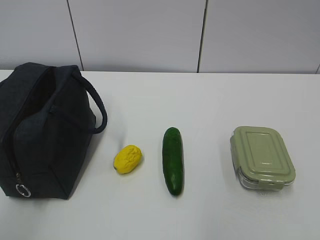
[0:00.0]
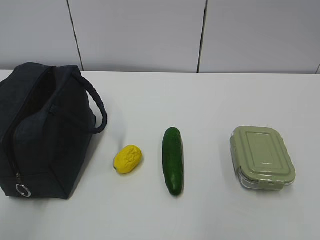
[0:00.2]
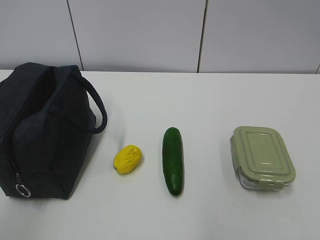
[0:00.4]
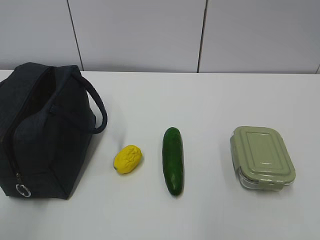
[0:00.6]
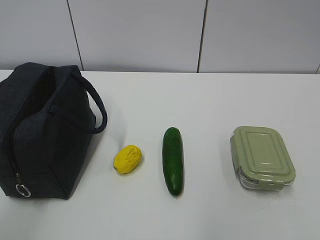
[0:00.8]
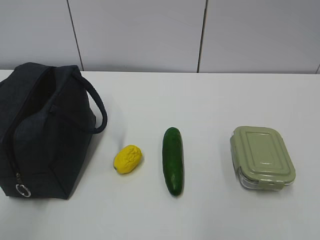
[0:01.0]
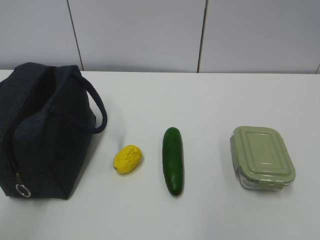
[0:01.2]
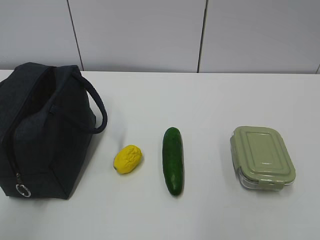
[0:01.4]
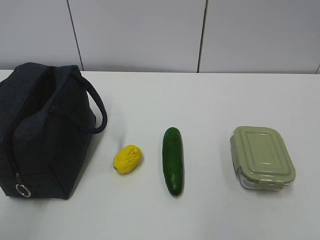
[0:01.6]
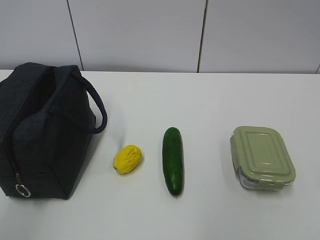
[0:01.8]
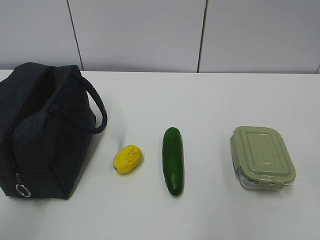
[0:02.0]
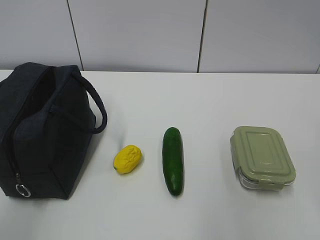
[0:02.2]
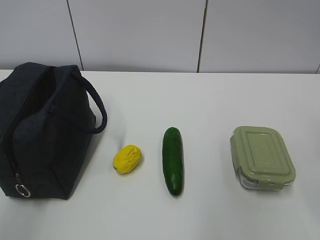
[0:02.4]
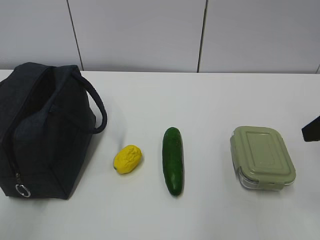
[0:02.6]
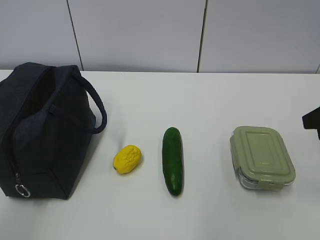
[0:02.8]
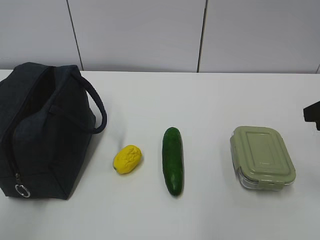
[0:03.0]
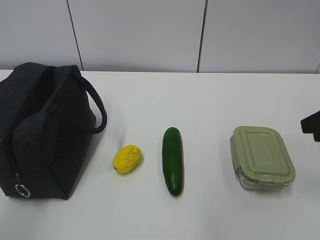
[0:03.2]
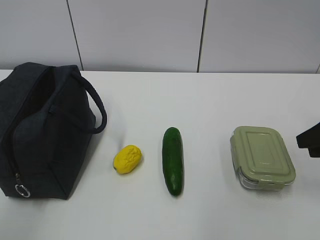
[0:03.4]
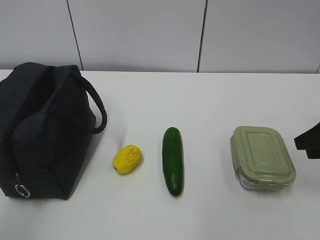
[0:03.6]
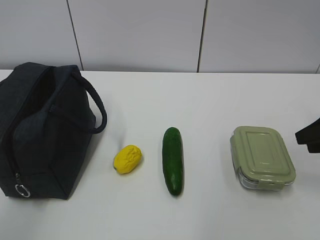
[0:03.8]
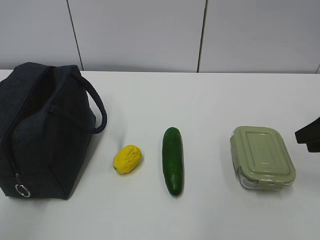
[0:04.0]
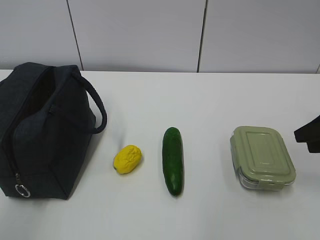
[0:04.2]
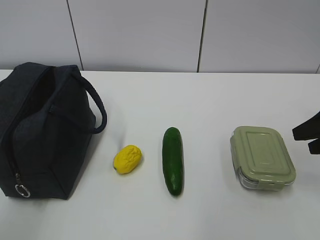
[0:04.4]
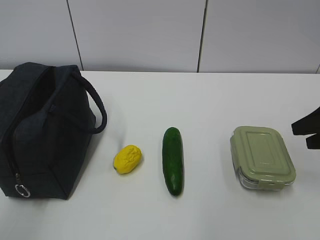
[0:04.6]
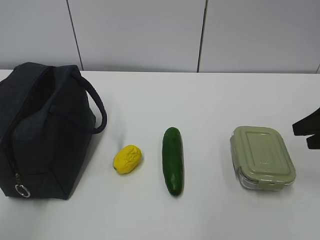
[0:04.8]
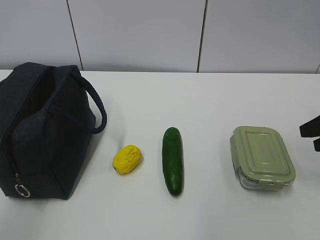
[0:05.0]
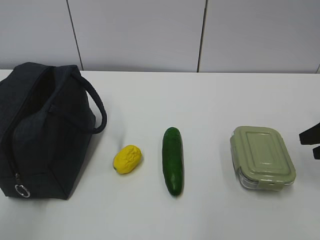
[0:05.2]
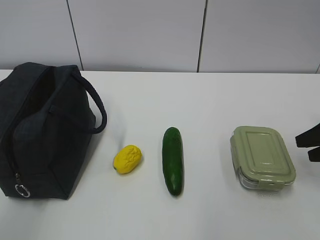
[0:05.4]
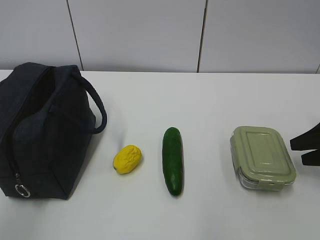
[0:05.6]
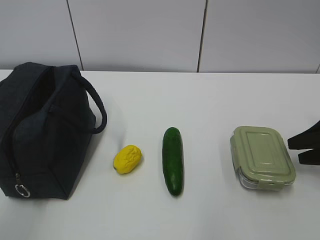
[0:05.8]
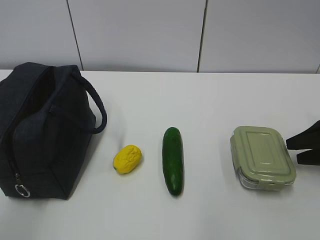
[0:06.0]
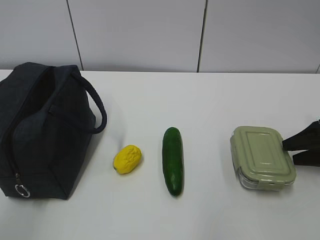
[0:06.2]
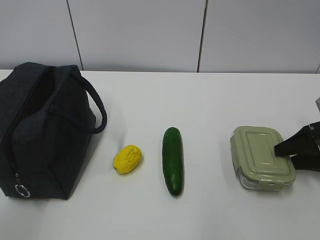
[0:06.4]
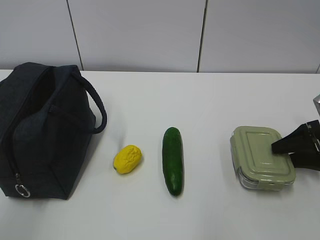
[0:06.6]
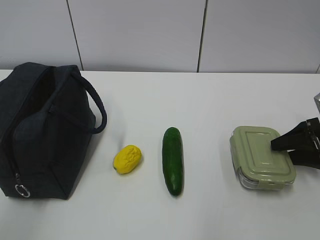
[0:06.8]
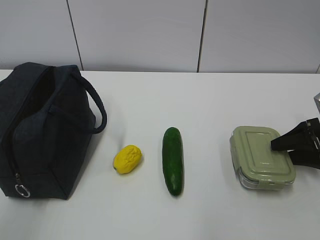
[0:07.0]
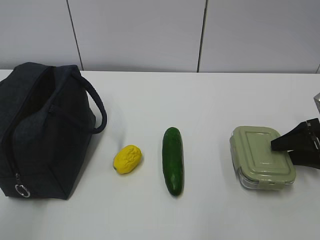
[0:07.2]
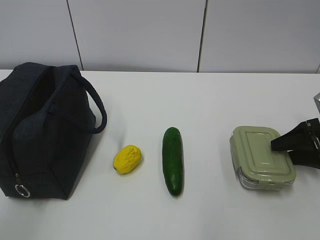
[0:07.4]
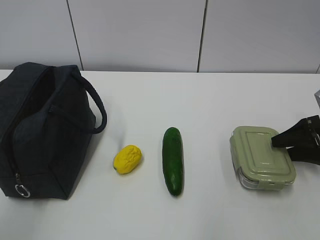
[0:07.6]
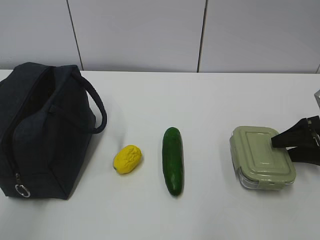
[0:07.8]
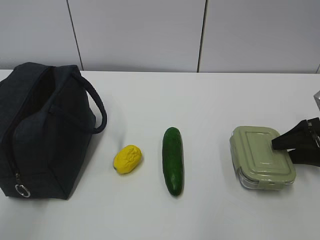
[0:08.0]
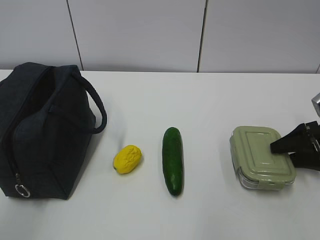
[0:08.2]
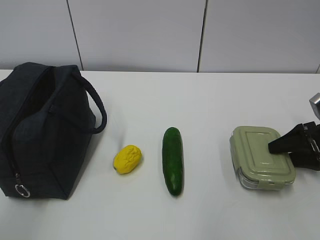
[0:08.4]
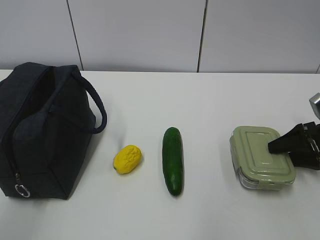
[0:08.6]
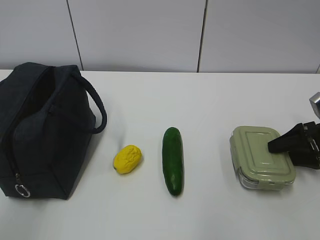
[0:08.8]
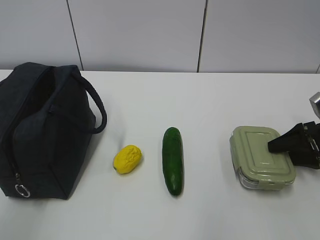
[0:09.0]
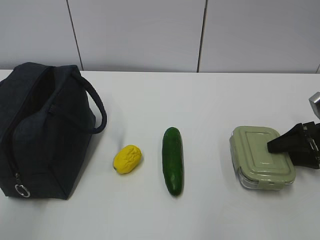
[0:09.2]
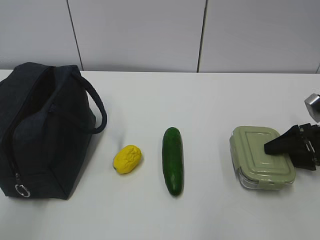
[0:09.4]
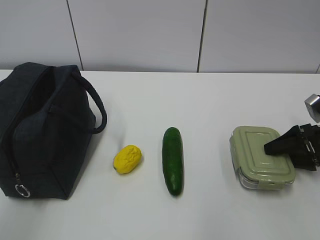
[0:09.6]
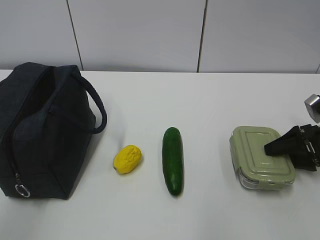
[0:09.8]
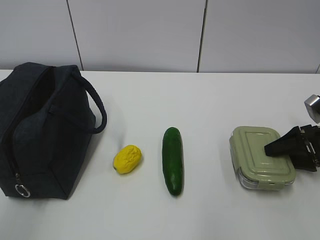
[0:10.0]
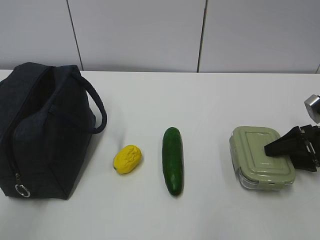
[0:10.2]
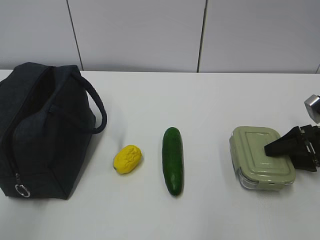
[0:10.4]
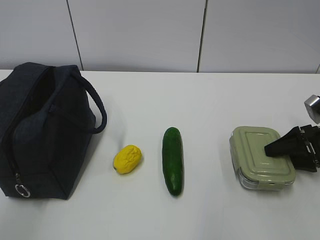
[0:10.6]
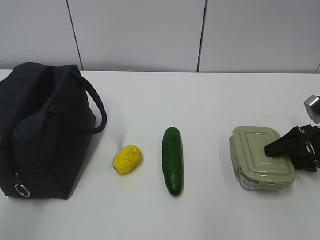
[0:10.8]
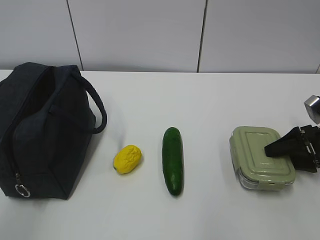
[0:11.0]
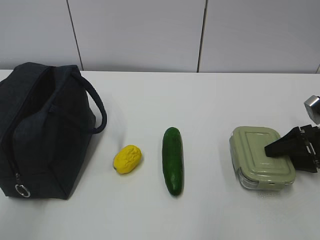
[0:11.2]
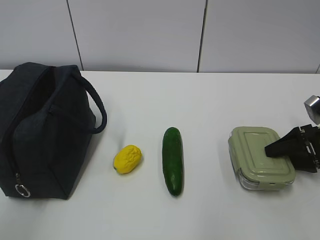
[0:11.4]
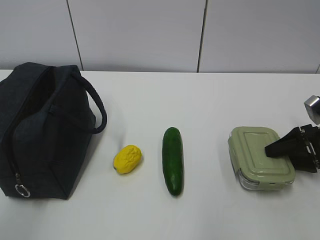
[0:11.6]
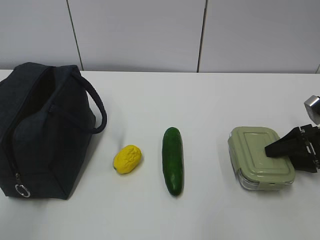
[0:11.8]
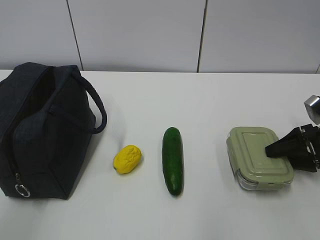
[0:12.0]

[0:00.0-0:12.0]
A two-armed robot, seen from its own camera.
0:03.0 to 0:04.4: The right gripper goes approximately 5 cm downward.
0:04.4 to 0:06.0: The right gripper travels downward by approximately 5 cm.
0:06.0 to 0:07.6: The grippers stay close to where they were, moving slightly.
0:07.6 to 0:09.0: Both grippers stay put.
0:09.0 to 0:12.0: Both grippers stay put.

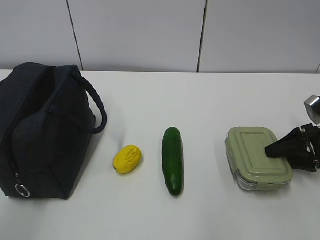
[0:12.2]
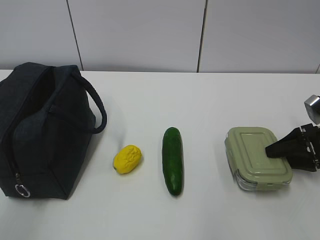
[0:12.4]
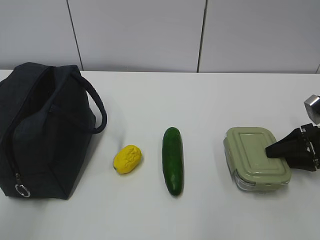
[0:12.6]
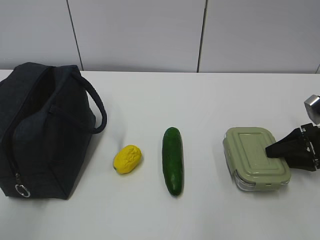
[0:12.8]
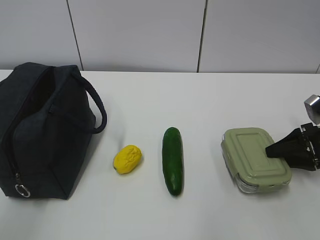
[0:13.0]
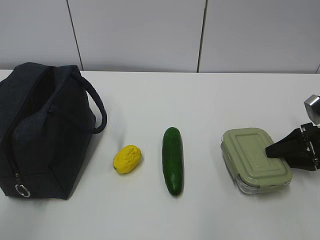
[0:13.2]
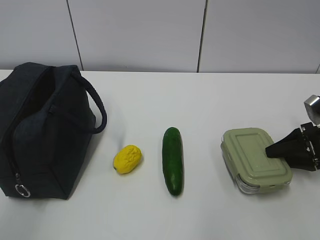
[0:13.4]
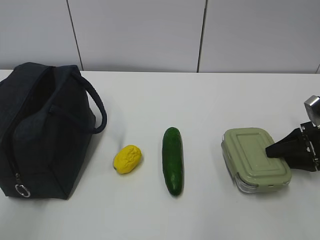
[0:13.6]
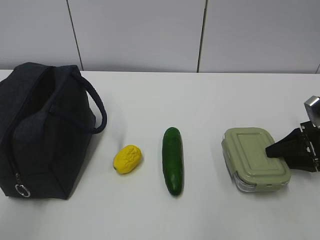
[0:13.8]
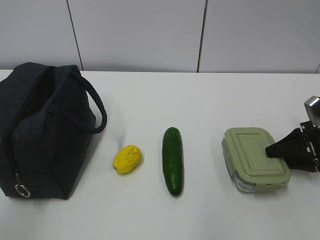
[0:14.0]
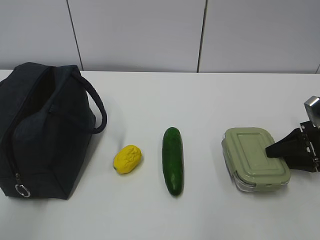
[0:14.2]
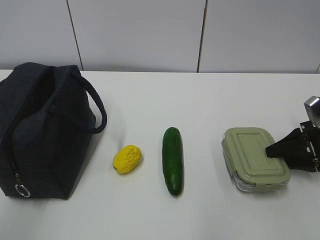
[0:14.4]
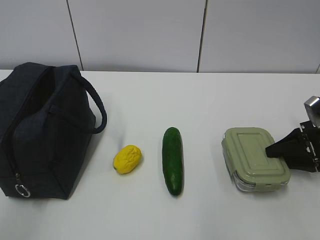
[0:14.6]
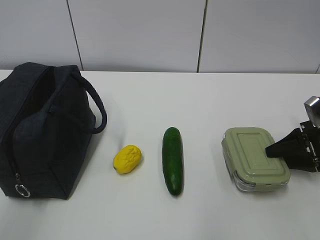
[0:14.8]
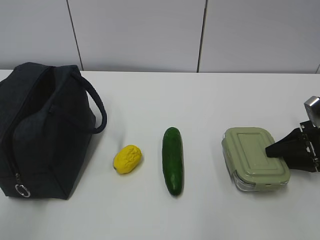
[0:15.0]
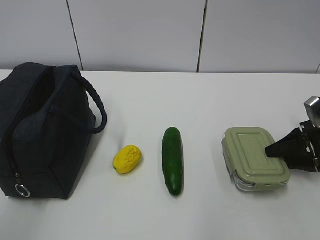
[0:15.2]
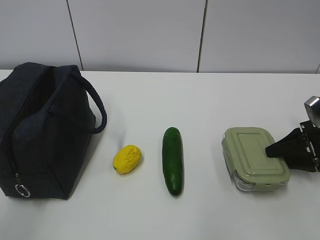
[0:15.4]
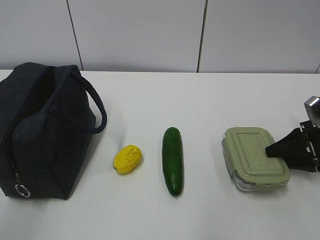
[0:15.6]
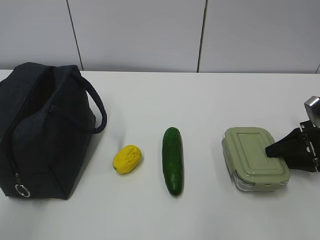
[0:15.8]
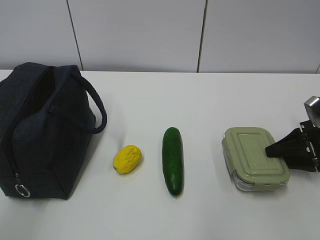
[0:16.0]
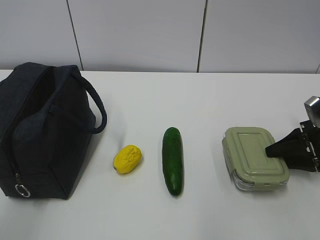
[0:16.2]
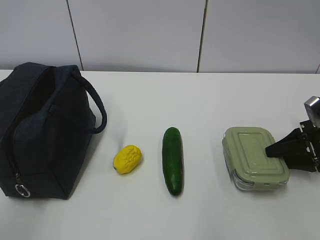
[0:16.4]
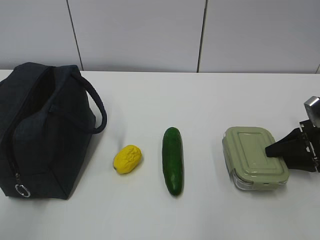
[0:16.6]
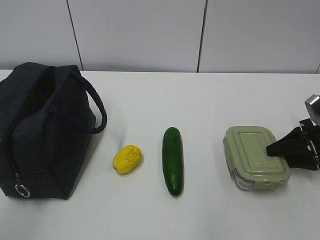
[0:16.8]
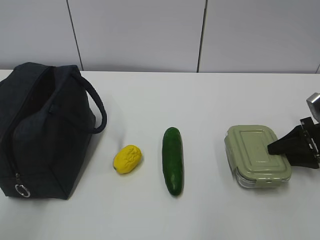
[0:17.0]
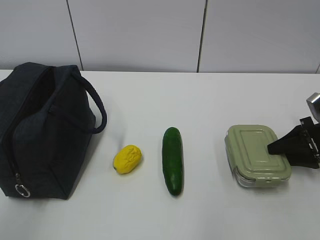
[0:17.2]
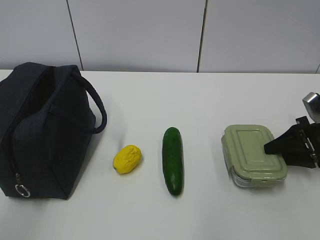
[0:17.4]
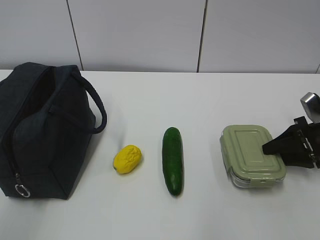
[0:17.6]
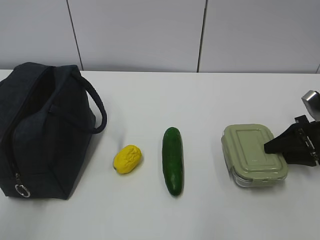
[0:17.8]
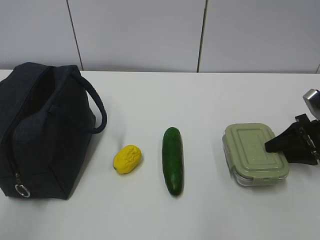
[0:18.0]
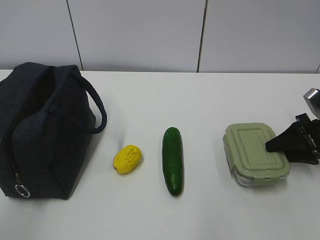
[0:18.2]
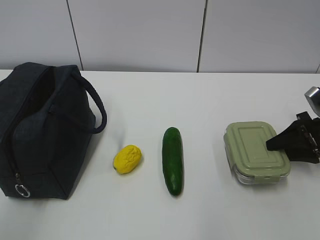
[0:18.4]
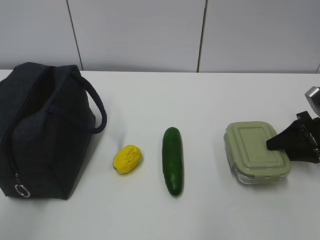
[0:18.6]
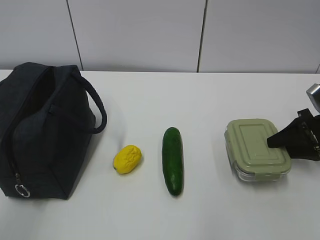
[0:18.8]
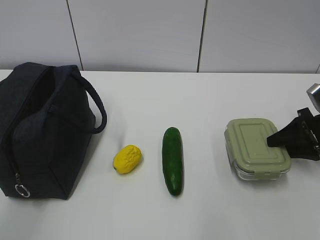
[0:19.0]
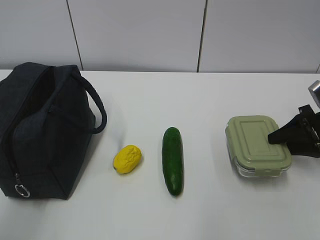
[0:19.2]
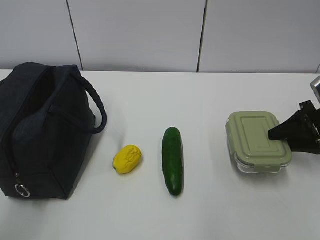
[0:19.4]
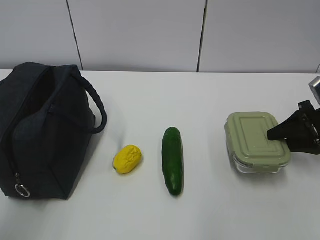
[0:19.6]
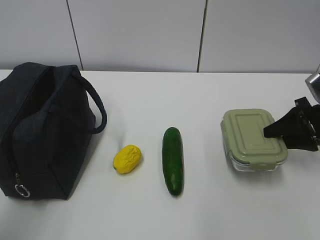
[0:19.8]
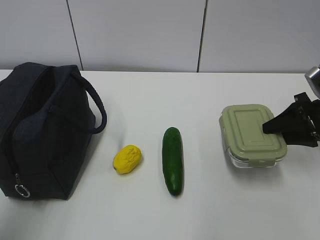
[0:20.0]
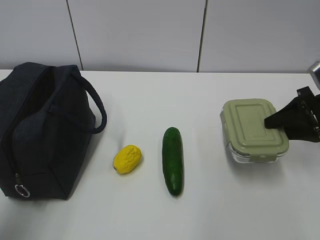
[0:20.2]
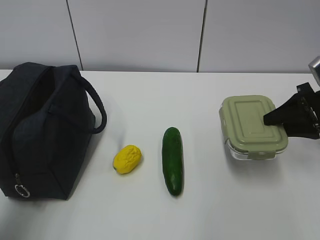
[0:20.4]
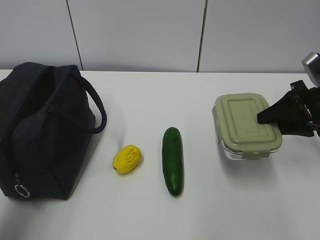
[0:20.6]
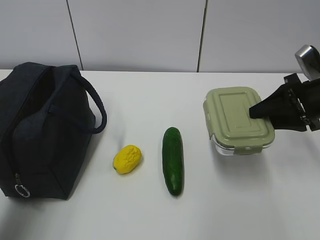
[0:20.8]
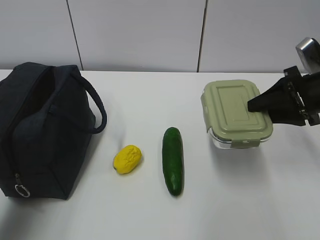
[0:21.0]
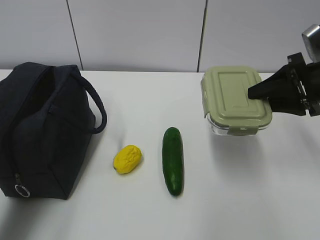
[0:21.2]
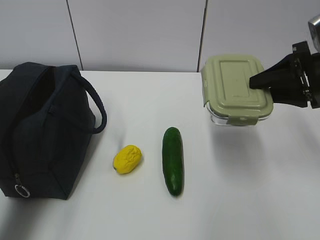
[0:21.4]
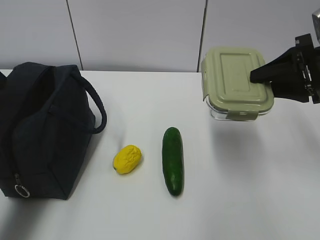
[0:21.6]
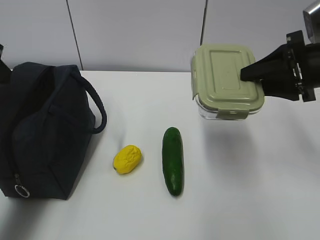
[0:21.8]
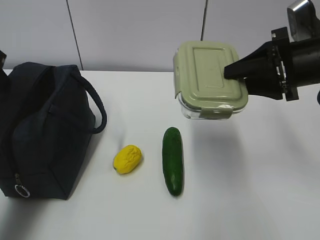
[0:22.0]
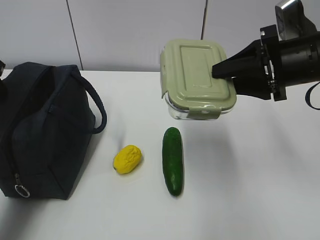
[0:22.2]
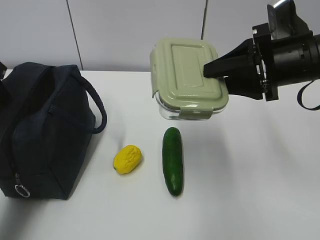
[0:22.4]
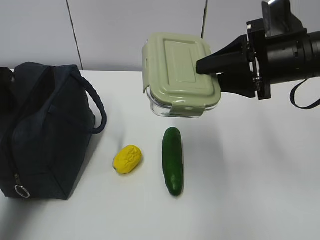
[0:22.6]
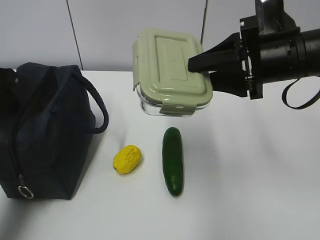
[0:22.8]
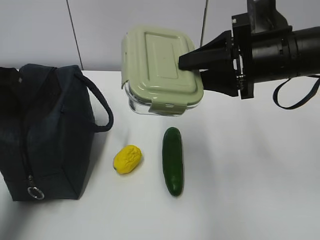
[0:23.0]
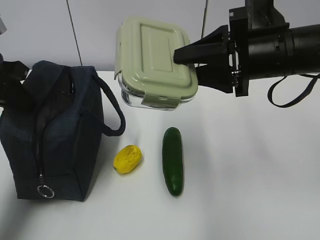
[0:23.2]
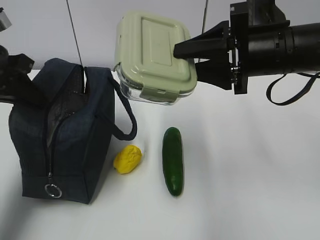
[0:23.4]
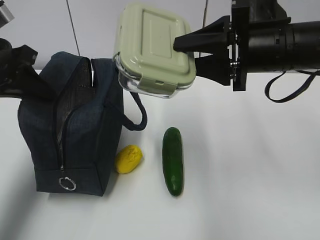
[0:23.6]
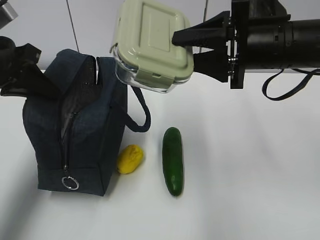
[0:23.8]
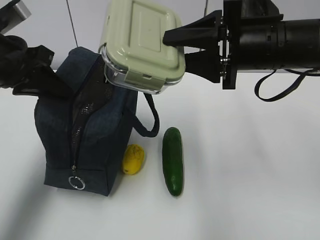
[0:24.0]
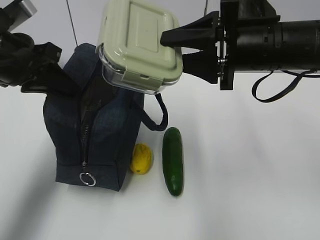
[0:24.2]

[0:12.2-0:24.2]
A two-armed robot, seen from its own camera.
Step, 0:14.0 to 0:20.4: Grab the lunch bag with your left hand.
0:12.2 to 0:13.8: There are only small adjustments of the grippers.
0:13.8 to 0:16.6: Neither gripper changes place.
0:16.6 to 0:18.2: There are only small adjustments of the grippers.
0:19.8 to 0:21.2: The right gripper heads upward and to the left, covering roughly 10 cm; the left gripper moves forward, roughly 15 cm.
0:21.2 to 0:22.6: The right gripper shifts about 10 cm to the left. Meanwhile the left gripper travels forward by about 10 cm.
0:22.6 to 0:24.2: The left gripper goes approximately 5 cm to the right, and closes; the right gripper ends up some 5 cm from where it was.
